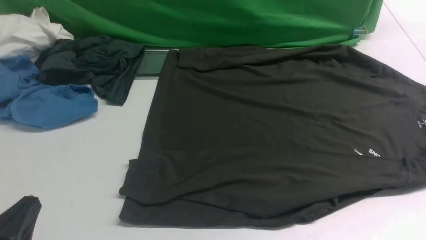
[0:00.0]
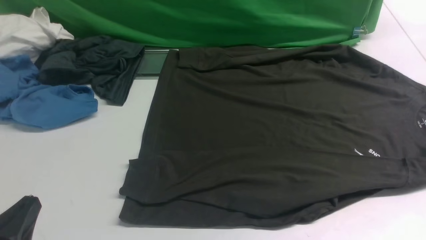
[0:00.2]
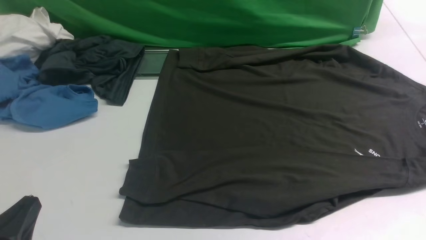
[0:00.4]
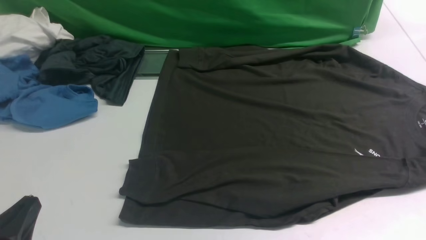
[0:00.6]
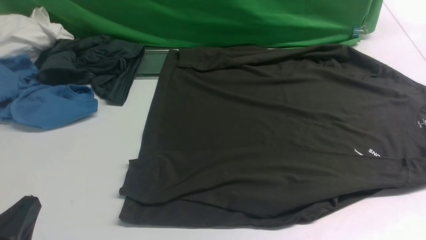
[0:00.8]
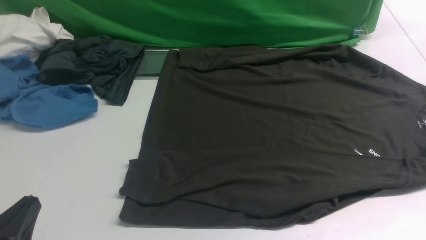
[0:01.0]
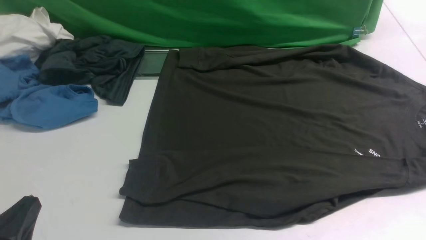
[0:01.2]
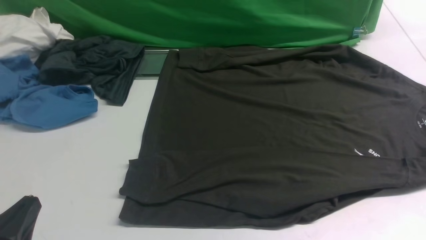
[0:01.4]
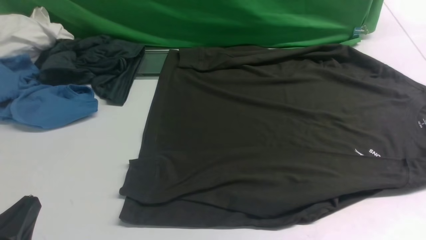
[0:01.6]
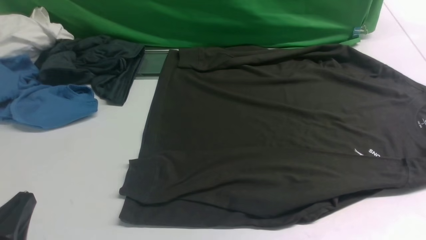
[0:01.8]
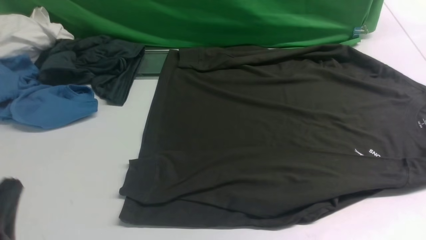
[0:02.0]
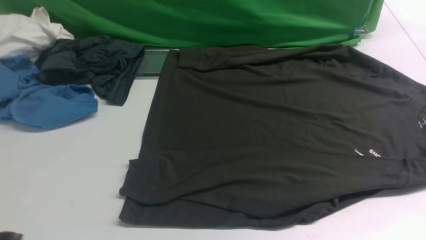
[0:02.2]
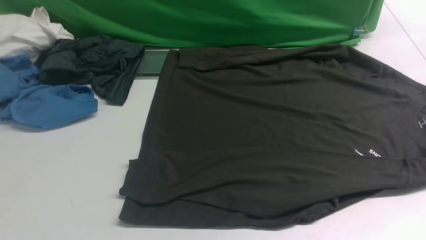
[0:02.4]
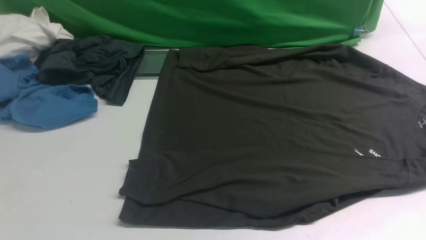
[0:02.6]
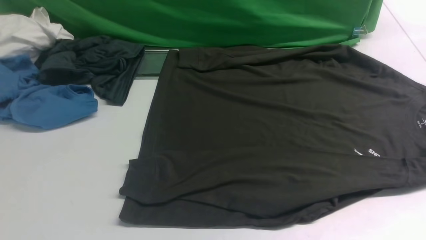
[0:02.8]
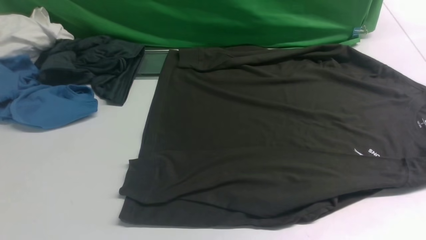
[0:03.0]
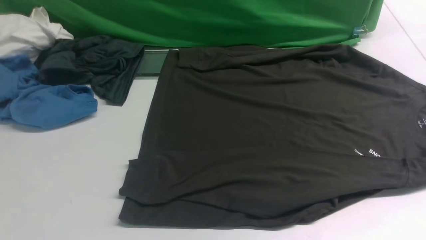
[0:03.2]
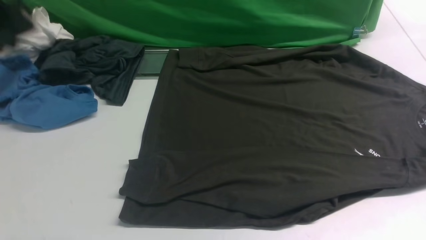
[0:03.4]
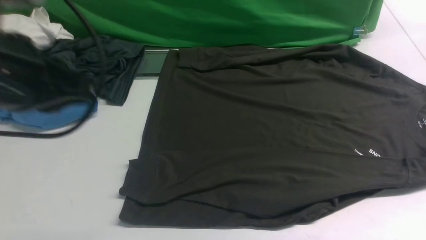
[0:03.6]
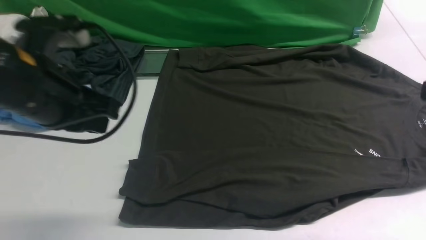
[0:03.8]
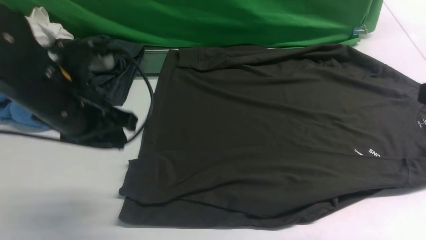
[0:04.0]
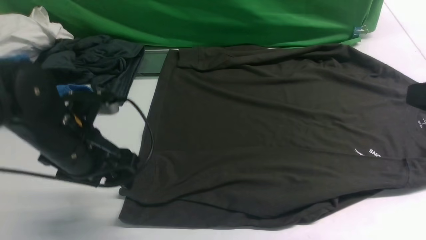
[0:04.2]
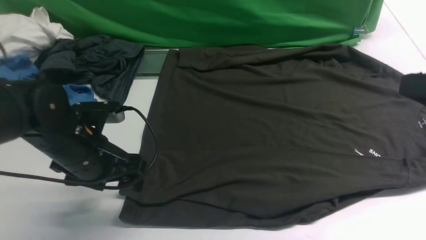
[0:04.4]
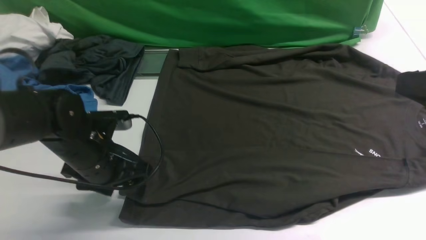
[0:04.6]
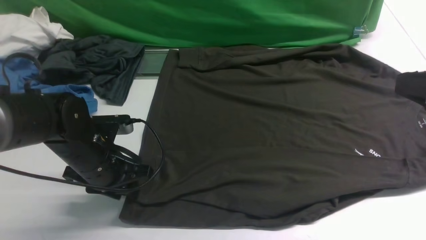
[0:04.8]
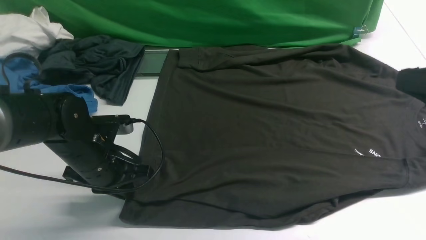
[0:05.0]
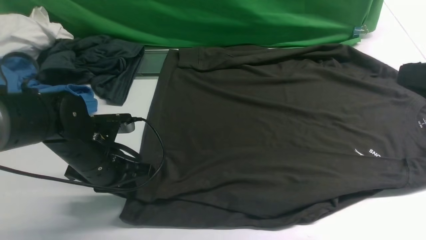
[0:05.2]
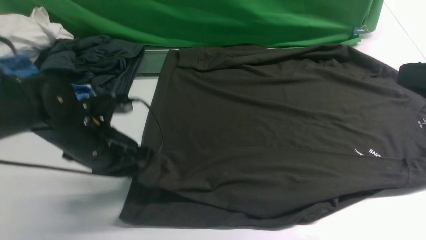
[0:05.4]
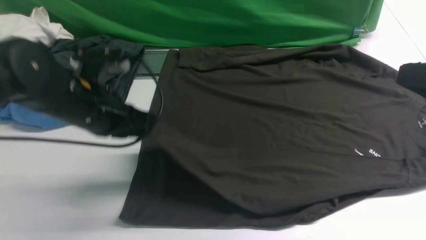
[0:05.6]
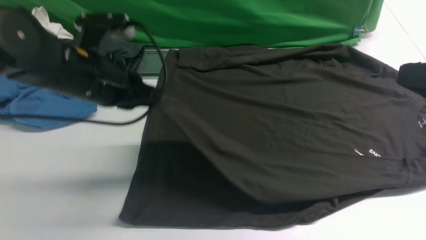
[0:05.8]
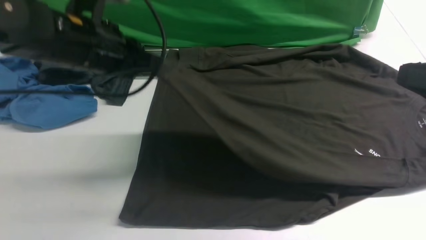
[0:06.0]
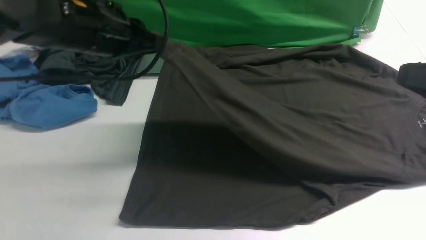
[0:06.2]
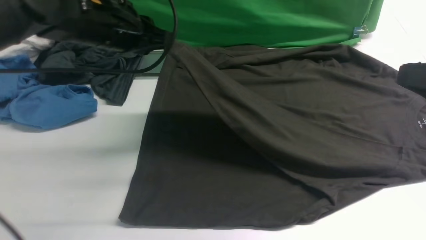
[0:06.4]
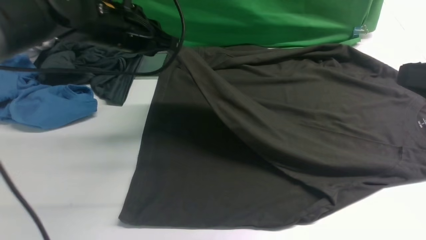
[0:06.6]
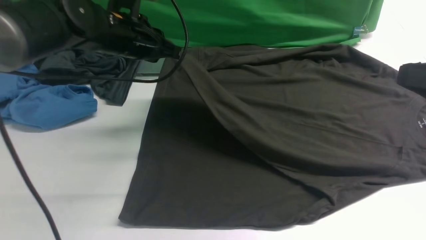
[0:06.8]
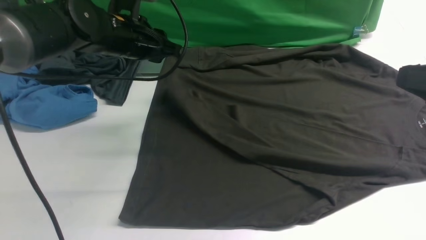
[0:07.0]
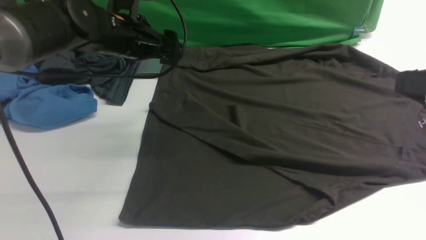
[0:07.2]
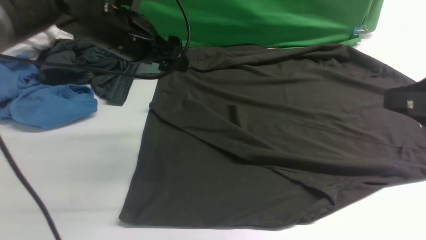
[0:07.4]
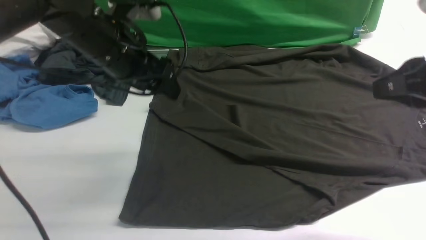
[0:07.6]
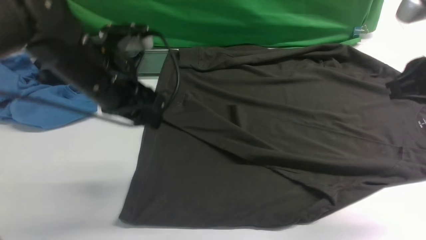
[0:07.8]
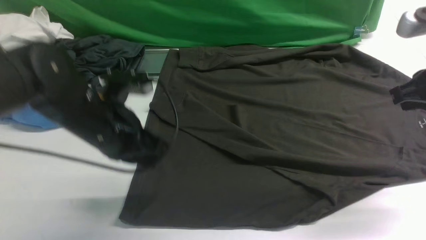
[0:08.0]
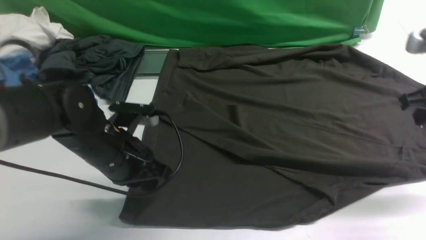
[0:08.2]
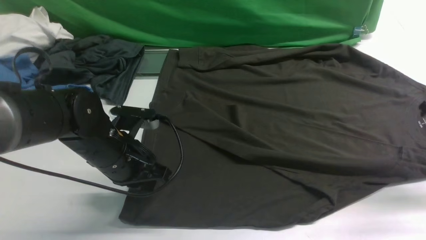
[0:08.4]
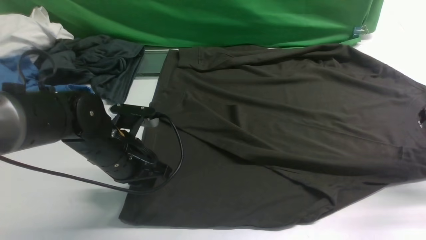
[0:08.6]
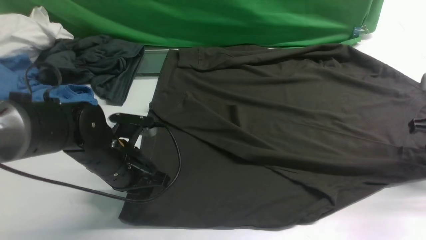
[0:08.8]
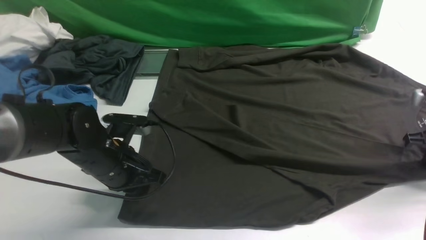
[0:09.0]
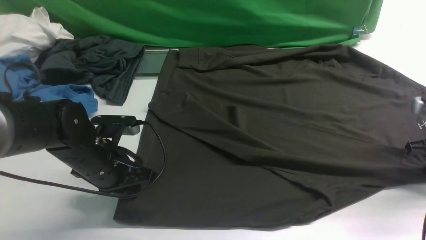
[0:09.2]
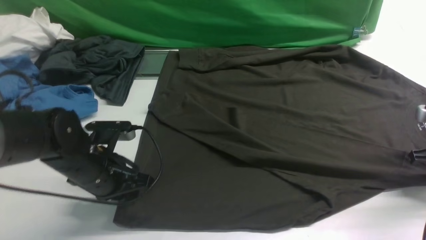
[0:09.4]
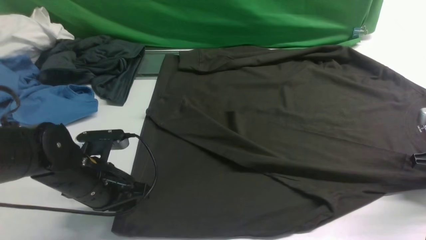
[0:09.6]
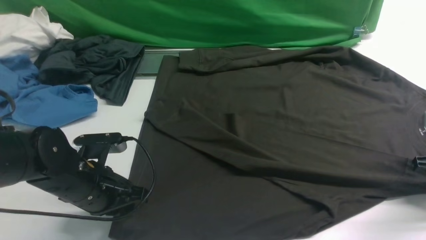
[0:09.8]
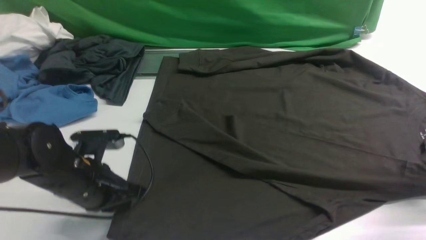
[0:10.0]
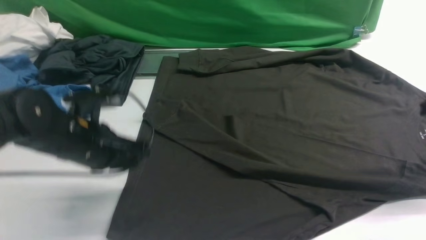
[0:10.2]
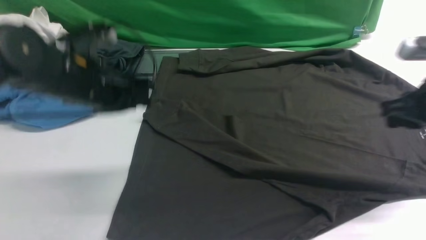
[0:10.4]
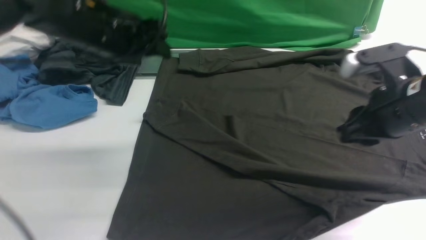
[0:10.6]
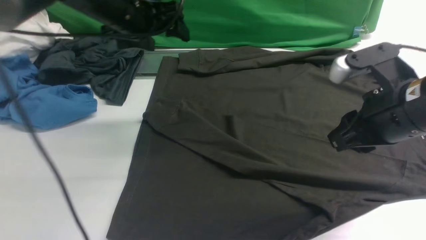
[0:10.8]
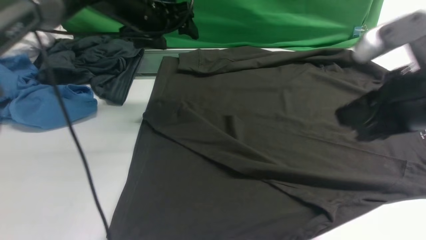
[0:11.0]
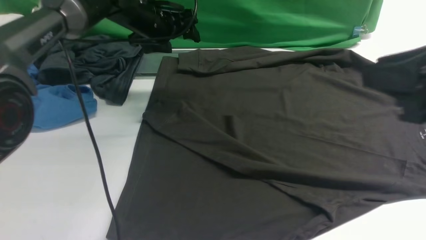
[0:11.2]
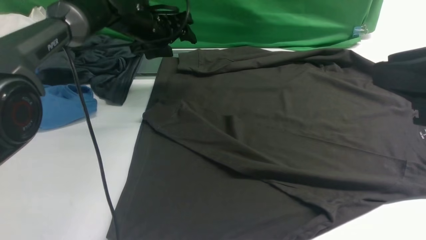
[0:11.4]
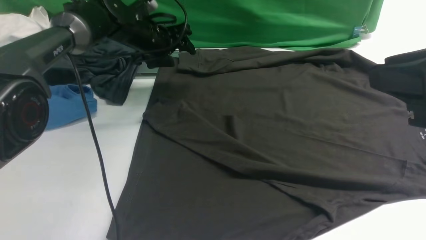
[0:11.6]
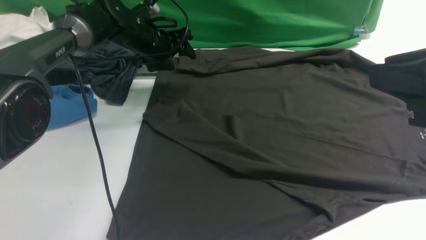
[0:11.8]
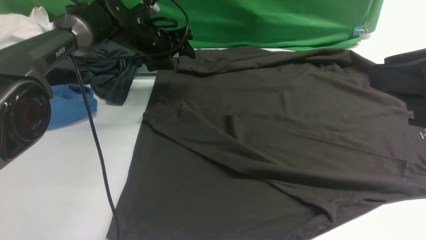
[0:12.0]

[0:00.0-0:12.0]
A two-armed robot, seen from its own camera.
Step, 0:00.0 to 0:05.4: use the left arm to clamp the cuff closest to it.
Step, 0:05.6 to 0:07.4: use the left arm to drag and place the cuff at the centered position on the left edge of the fabric.
0:00.0 to 0:01.6: The two grippers keep their place.
0:01.6 to 0:03.0: The left gripper moves upward, roughly 25 cm.
0:03.0 to 0:04.4: The right gripper goes about 15 cm downward and forward, while the left gripper travels downward and forward by roughly 30 cm, and opens its fingers.
0:04.4 to 0:06.0: The left gripper goes some 15 cm upward and forward, and closes.
0:06.0 to 0:07.6: The left gripper moves some 10 cm forward and comes back, and opens its fingers. Meanwhile the right gripper is displaced forward by some 5 cm.
0:07.6 to 0:09.0: The right gripper goes roughly 25 cm downward, to the right and forward. The left gripper moves downward and backward, roughly 15 cm, and closes.
0:09.0 to 0:10.4: The right gripper goes roughly 15 cm to the left and upward, while the left gripper heads upward, covering some 15 cm, and opens.
0:10.4 to 0:12.0: The right gripper heads upward, backward and to the left, covering approximately 20 cm. Meanwhile the left gripper moves forward and downward, about 20 cm.

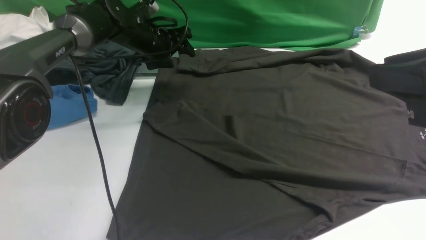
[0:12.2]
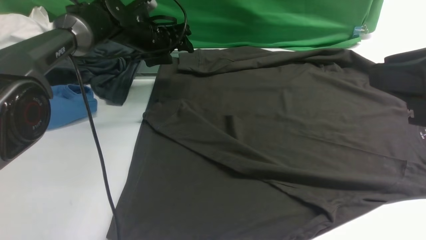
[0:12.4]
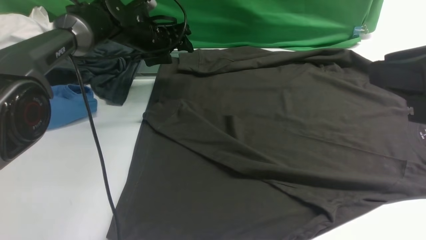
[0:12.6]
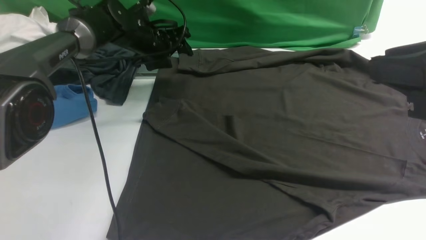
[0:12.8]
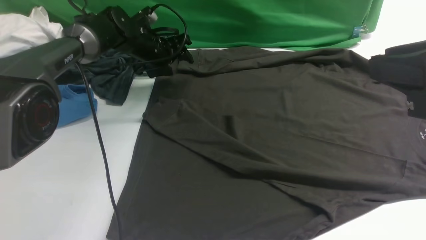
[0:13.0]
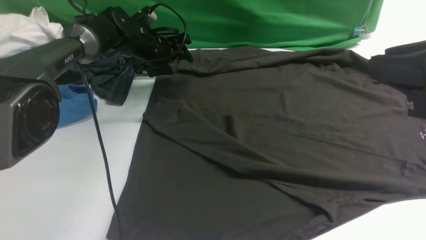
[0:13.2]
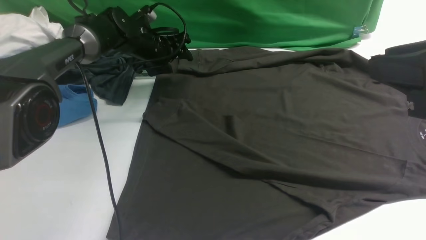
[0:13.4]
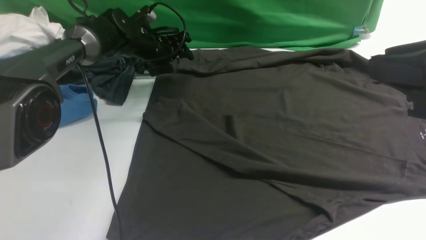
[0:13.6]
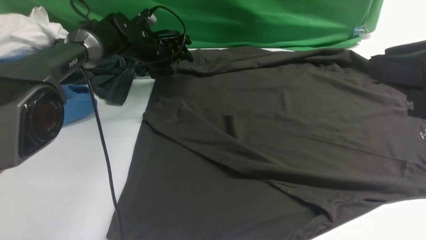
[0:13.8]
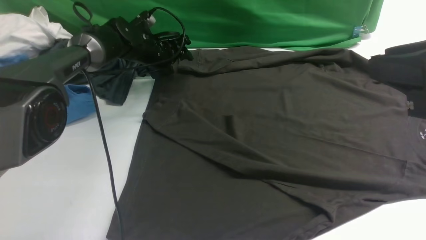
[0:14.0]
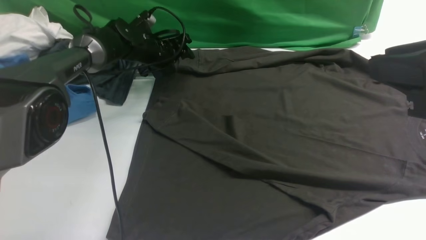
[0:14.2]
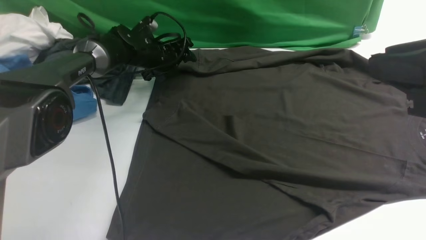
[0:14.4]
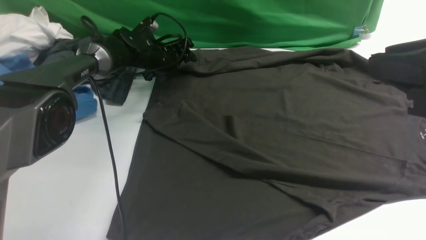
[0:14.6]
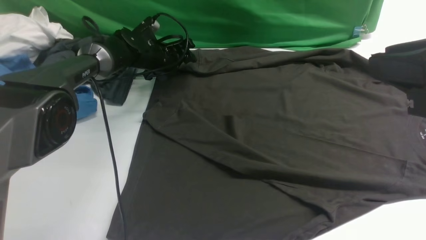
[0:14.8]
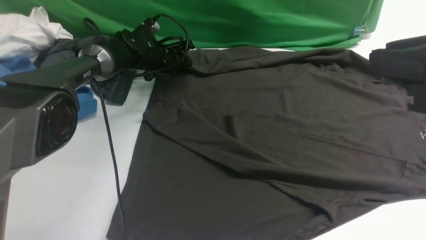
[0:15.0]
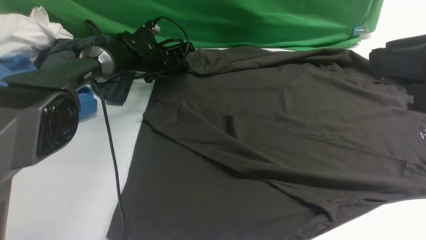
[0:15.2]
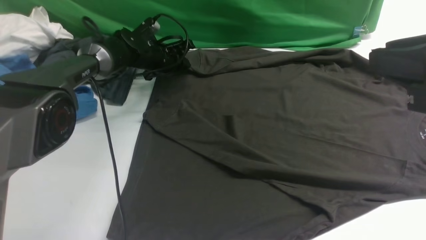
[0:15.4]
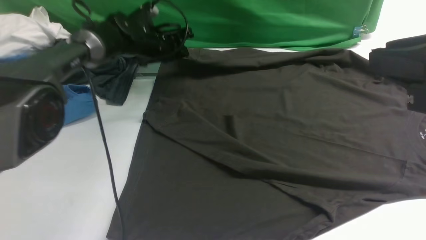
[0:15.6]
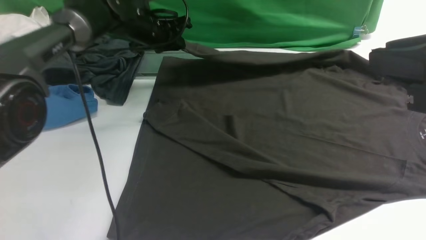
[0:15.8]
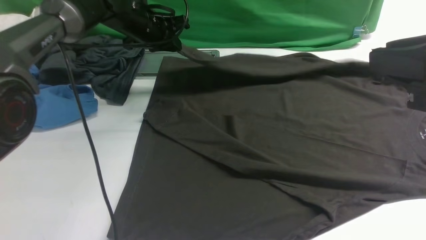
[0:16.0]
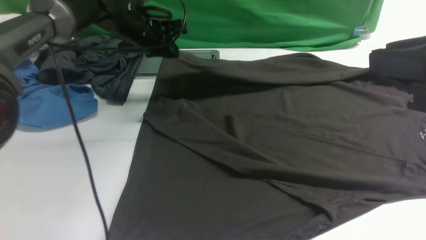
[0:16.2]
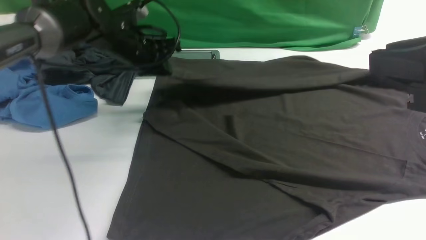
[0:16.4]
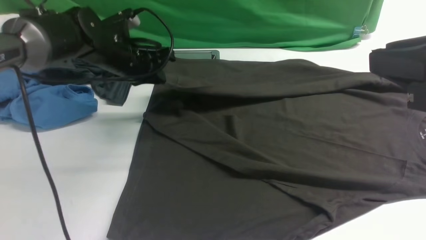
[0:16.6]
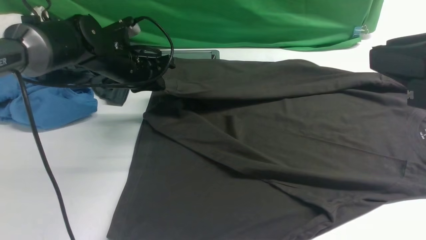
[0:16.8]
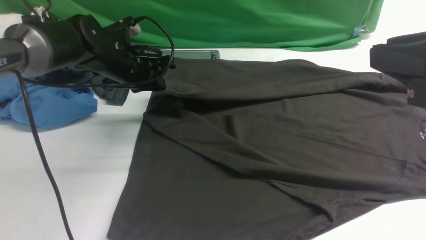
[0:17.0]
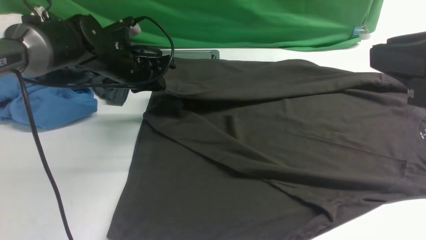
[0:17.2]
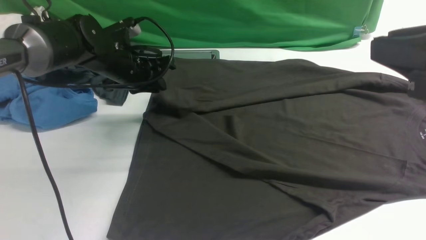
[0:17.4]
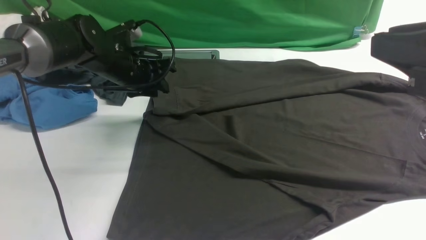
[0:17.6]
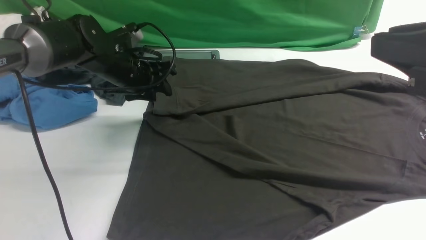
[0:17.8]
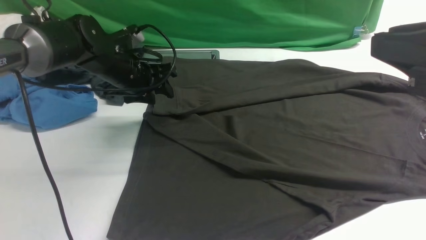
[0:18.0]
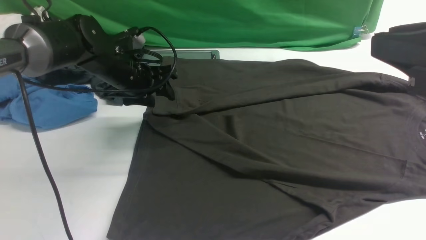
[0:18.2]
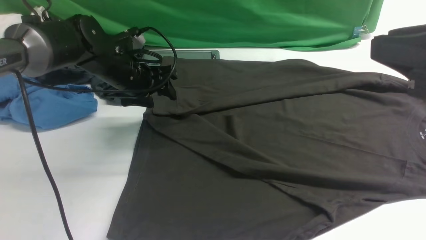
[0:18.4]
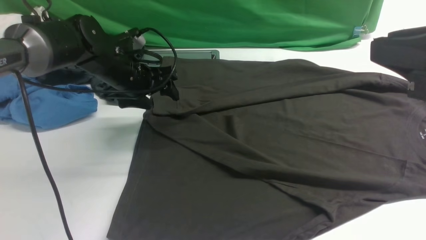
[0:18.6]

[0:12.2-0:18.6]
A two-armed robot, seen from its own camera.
Step, 0:12.2 to 0:15.6: use the left arm to clamp the cuff farthest from it.
Step, 0:15.8 to 0:17.8: use the left arm to drag and drop the cuff onto the cuff closest to the left arm.
0:12.2 to 0:13.8: The grippers move only a little.
0:13.8 to 0:15.4: The left gripper closes.
0:15.4 to 0:17.0: The left gripper travels backward and upward by roughly 15 cm.
0:17.0 to 0:18.6: The left gripper opens up.
